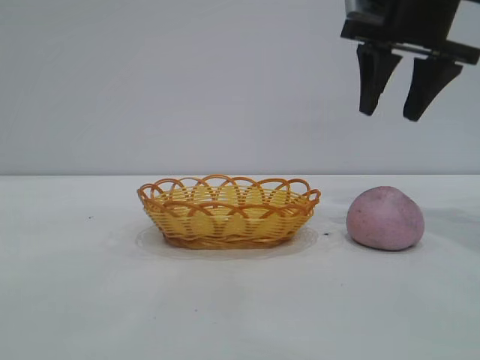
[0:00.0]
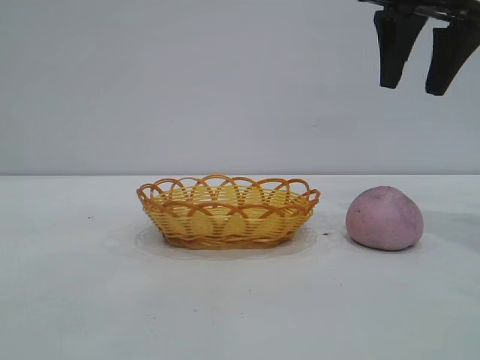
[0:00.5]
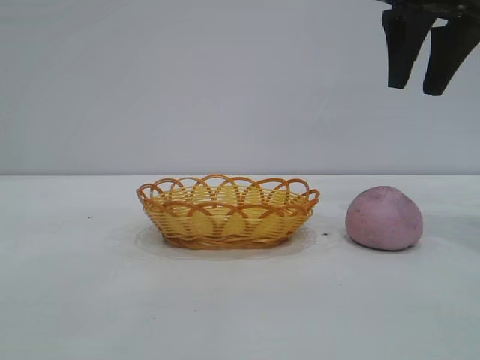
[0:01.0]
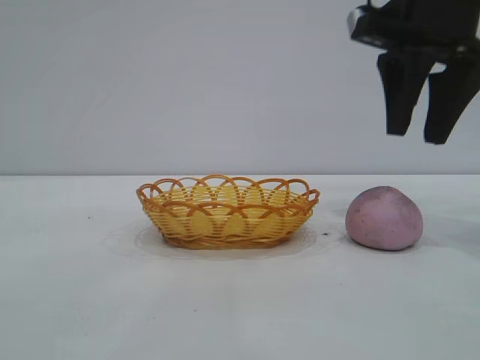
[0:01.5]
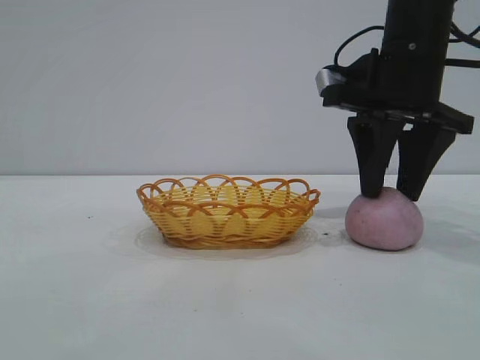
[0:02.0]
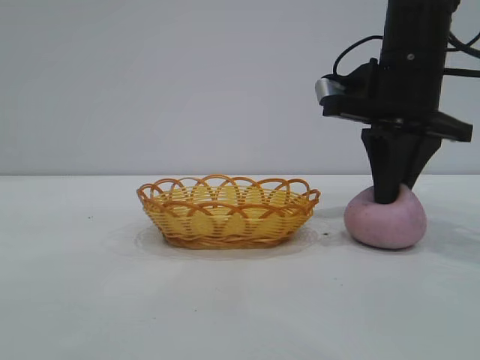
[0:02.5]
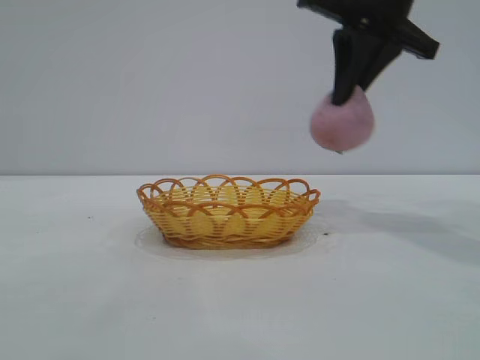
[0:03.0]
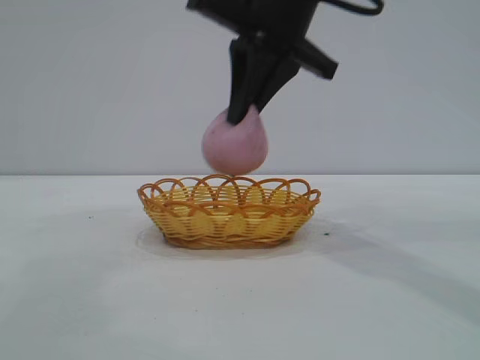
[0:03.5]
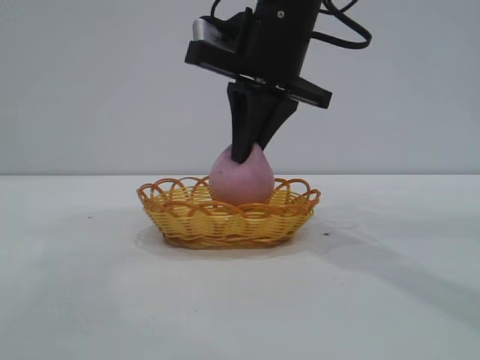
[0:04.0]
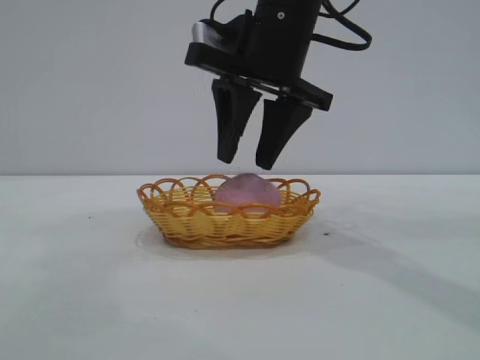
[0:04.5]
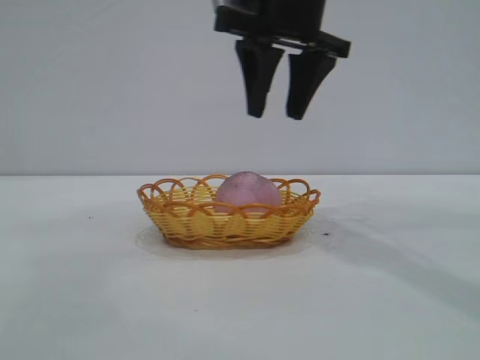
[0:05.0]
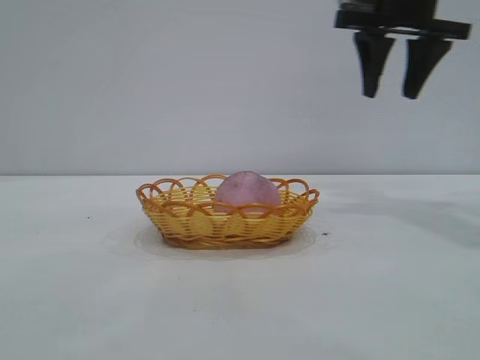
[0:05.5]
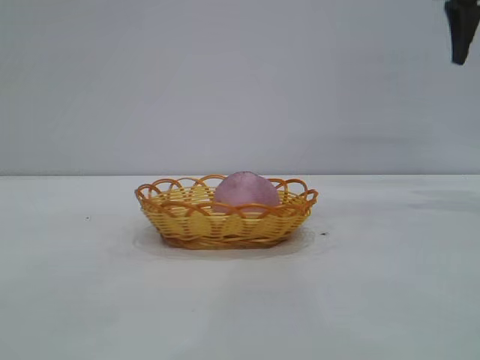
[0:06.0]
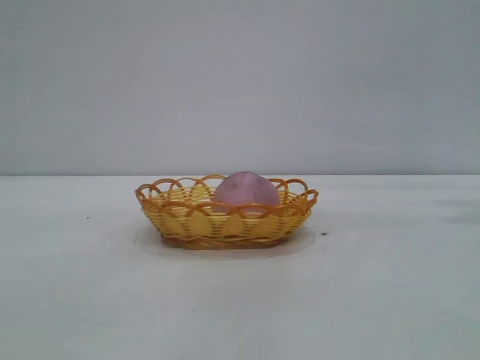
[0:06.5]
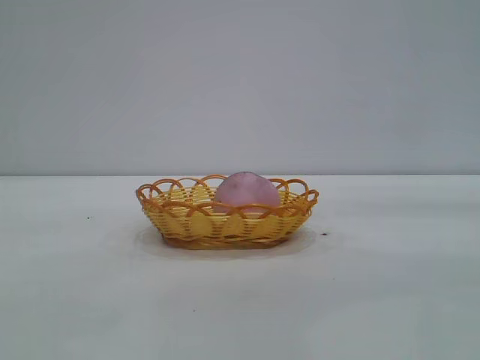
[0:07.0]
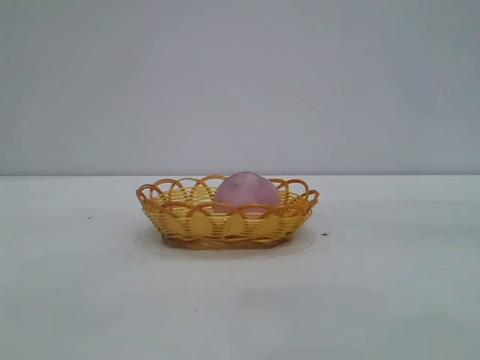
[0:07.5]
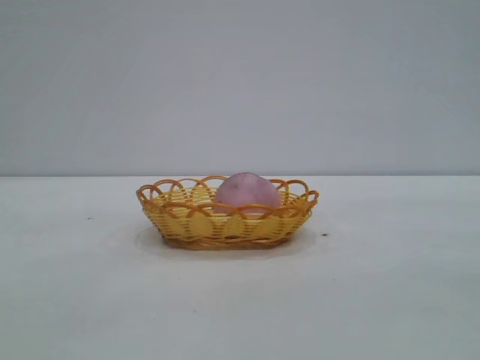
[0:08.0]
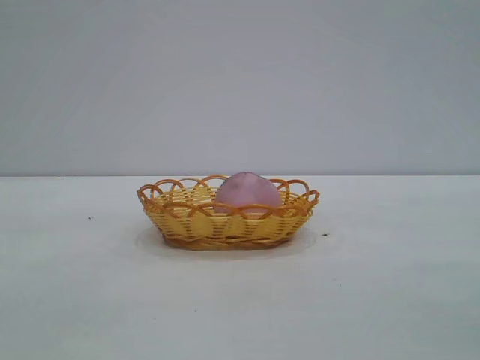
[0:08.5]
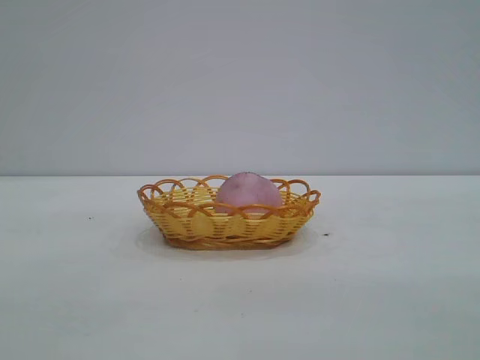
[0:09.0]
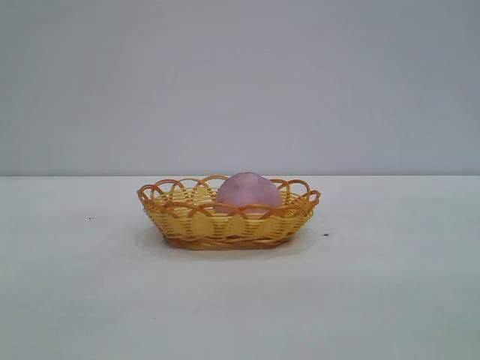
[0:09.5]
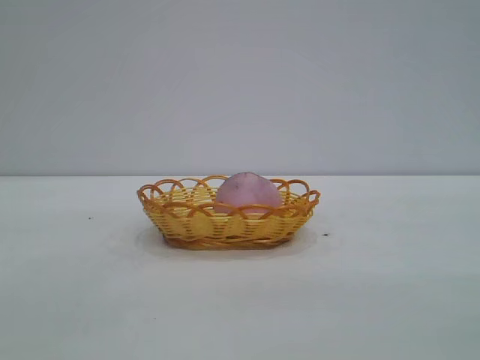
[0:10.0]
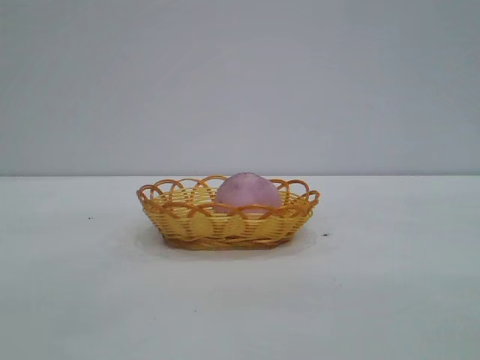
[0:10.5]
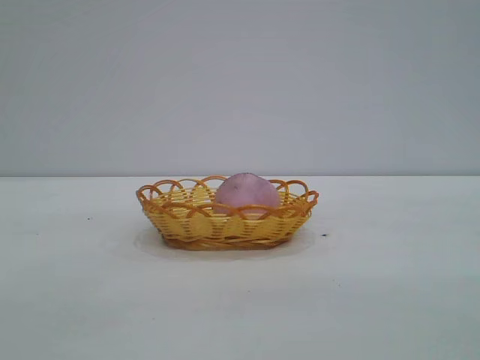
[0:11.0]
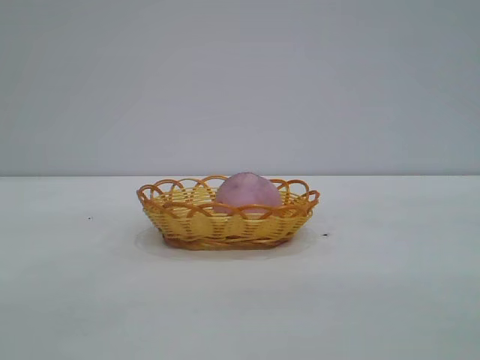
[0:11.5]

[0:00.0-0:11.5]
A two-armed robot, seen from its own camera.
Task of the whole recording: pick up the peach and put it into the basket.
Step, 0:00.0 to 0:02.5: Pick up the peach.
Step, 0:03.0 to 0:04.5: place the peach into the basket.
